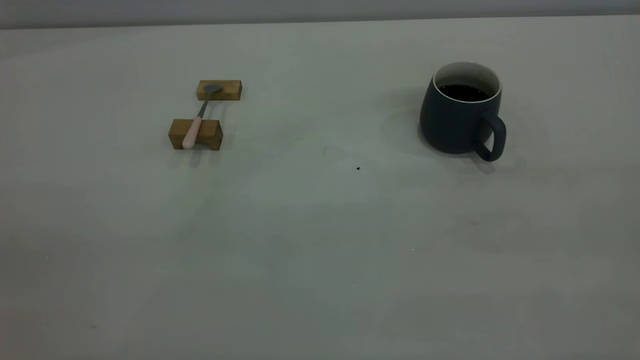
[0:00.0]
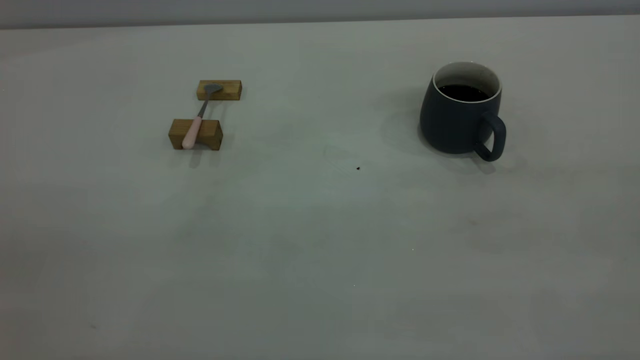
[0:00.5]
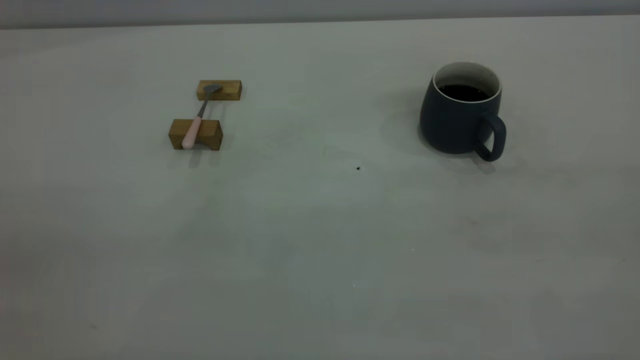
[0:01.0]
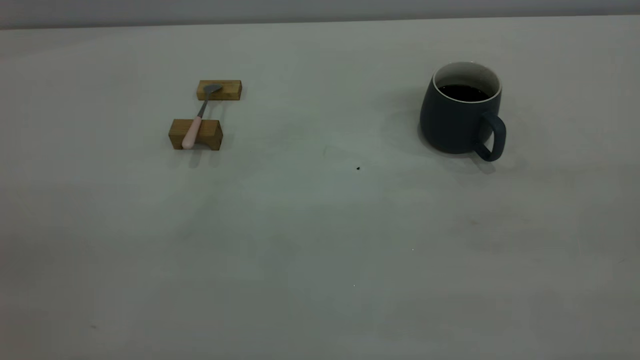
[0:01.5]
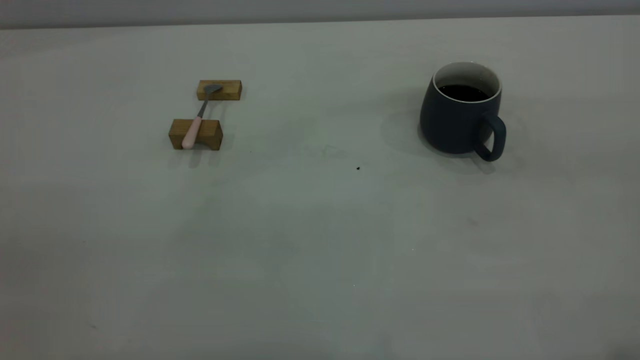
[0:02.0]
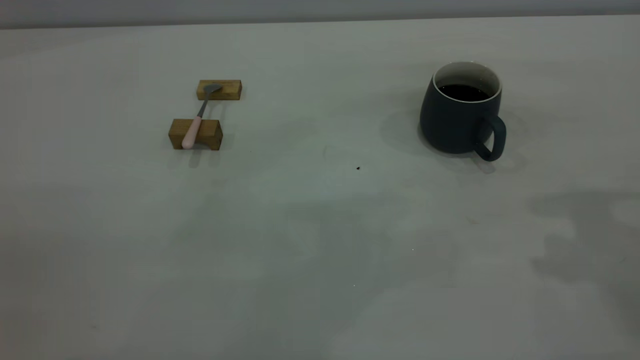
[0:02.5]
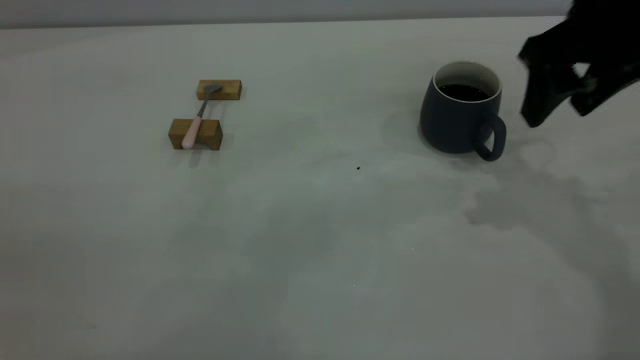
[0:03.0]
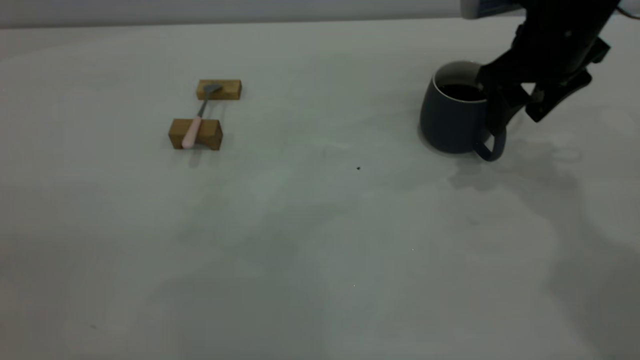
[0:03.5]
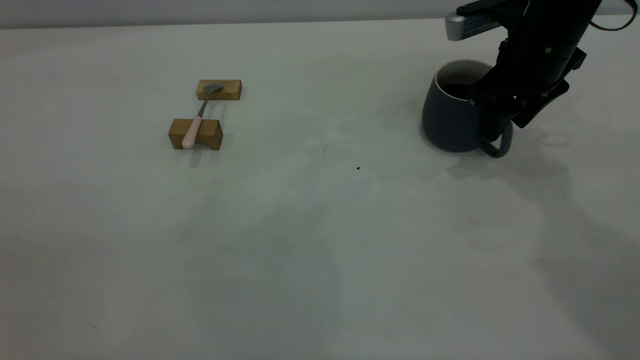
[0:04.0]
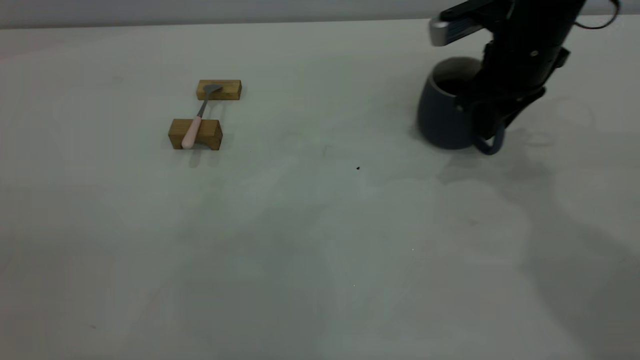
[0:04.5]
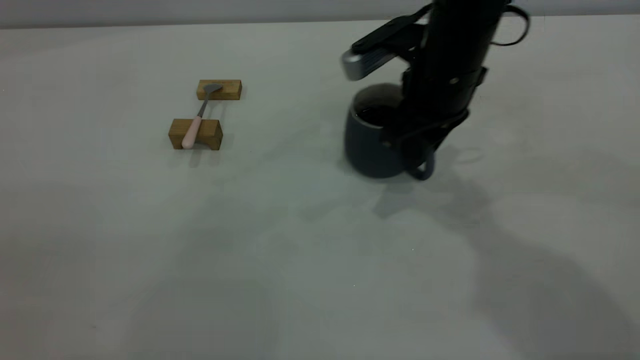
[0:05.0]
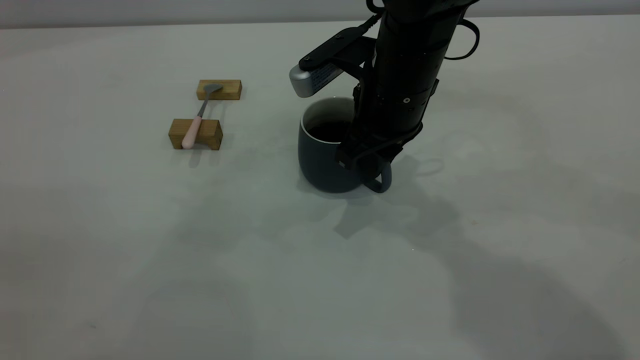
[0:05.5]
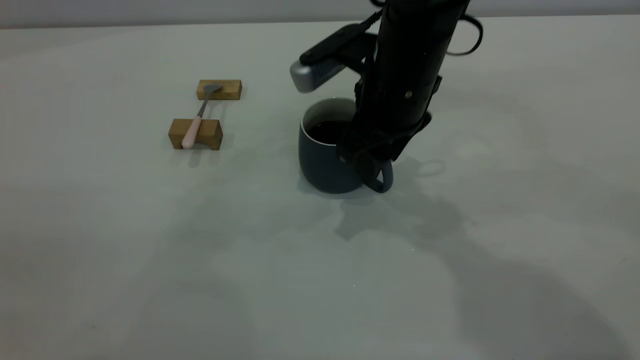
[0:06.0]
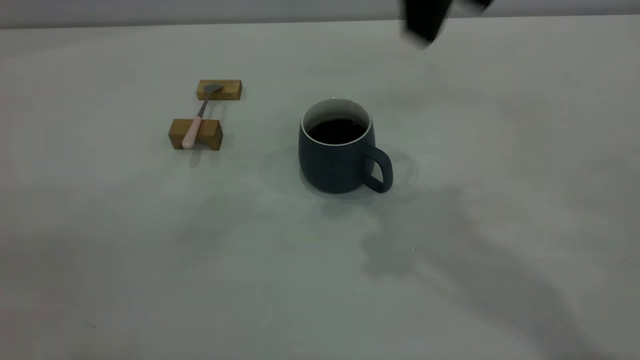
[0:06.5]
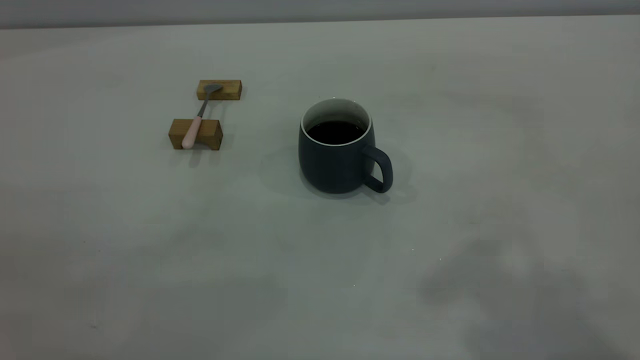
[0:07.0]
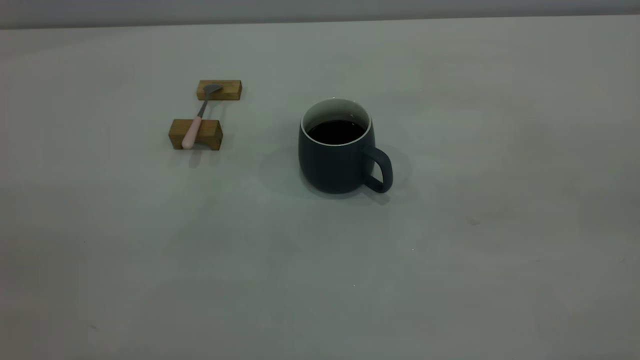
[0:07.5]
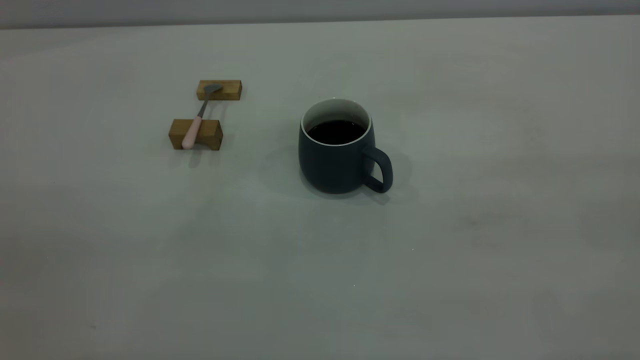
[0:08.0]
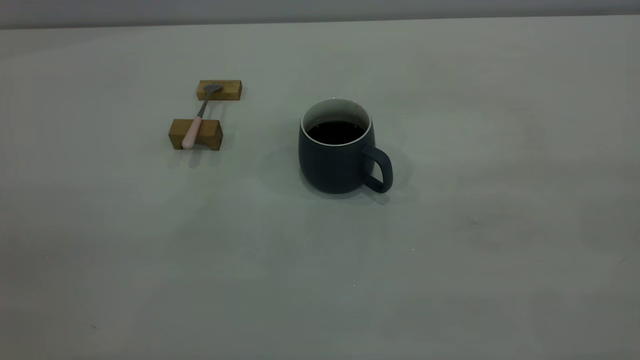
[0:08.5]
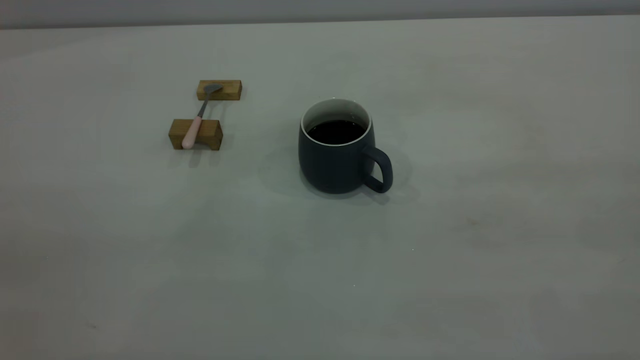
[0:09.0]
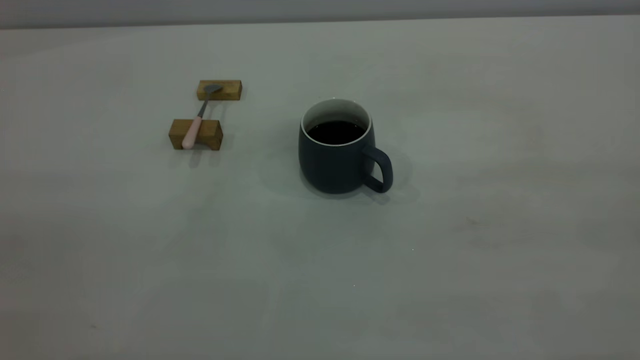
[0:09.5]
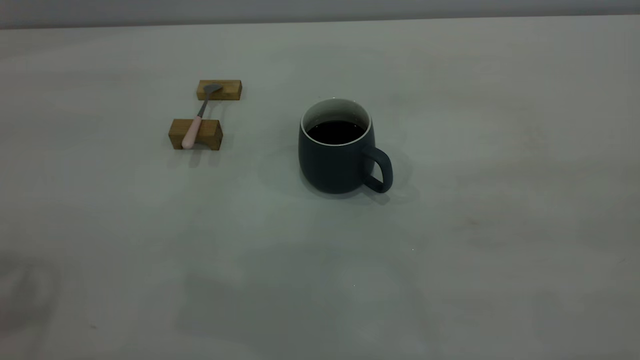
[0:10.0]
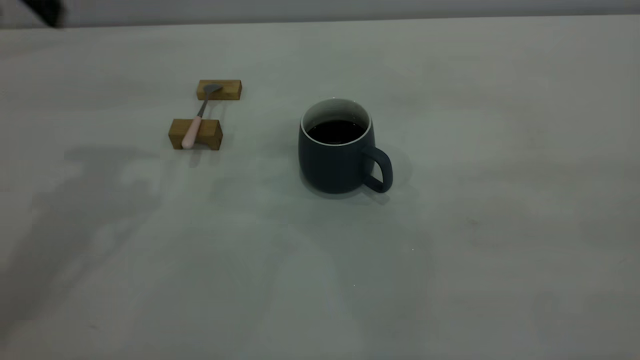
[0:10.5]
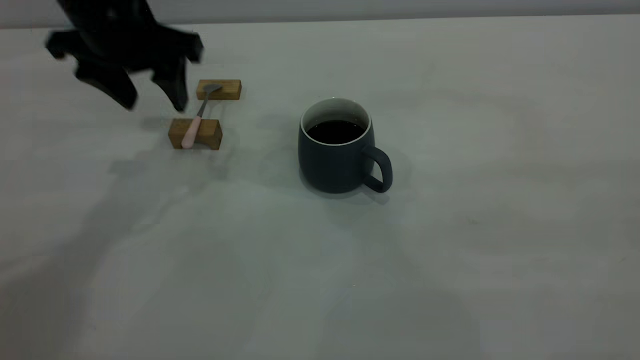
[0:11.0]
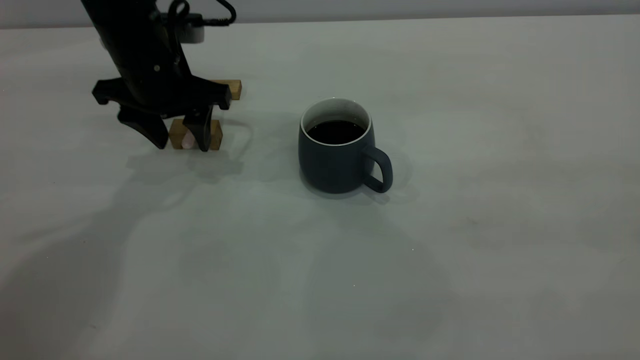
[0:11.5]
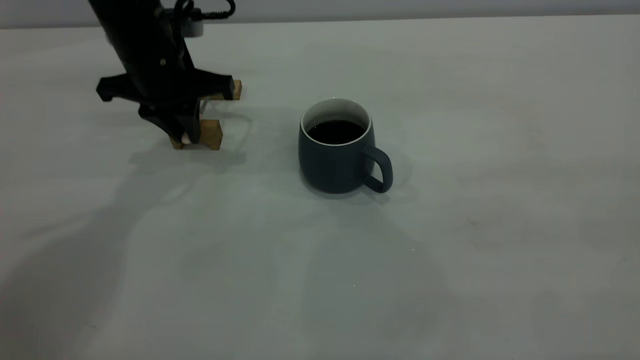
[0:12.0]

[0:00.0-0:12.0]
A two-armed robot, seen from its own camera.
Step, 0:00.0 to 0:06.0: Move the cup with coffee to the center of view.
0:02.0 to 0:04.0: The right gripper heads forward and downward, covering some 40 cm.
0:04.0 to 0:06.0: The right gripper heads to the left and backward, covering some 15 cm, and closes, then reopens.
0:06.0 to 0:08.0: The right gripper moves backward, to the right and upward, about 50 cm.
0:10.0 to 0:12.0: The left gripper moves downward, forward and to the right, approximately 35 cm, and closes up.

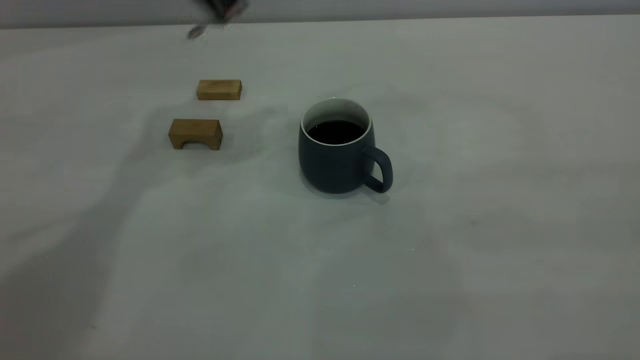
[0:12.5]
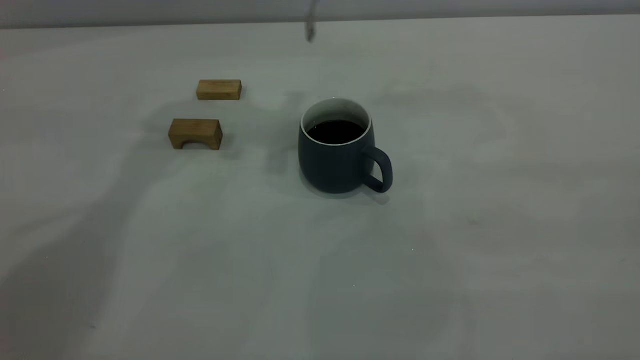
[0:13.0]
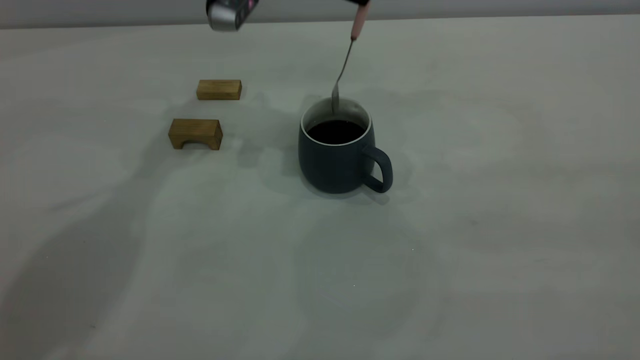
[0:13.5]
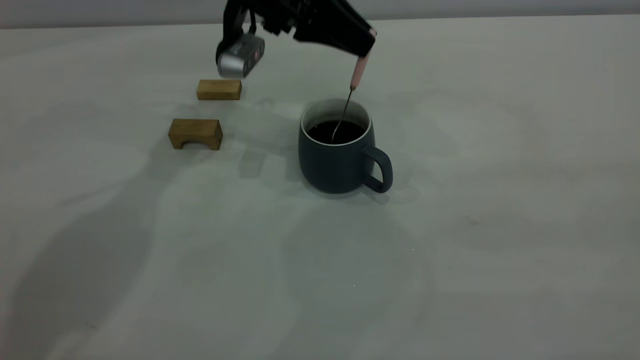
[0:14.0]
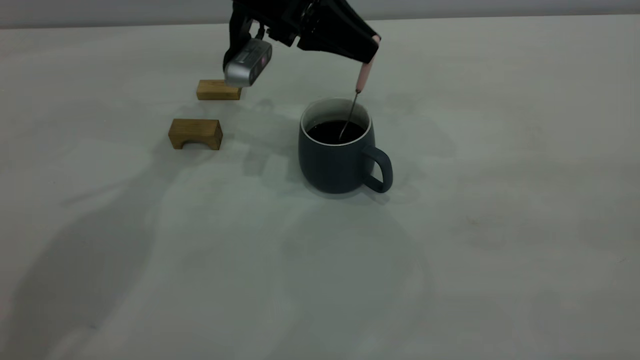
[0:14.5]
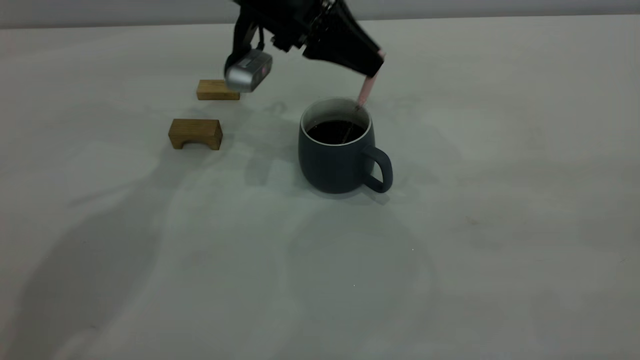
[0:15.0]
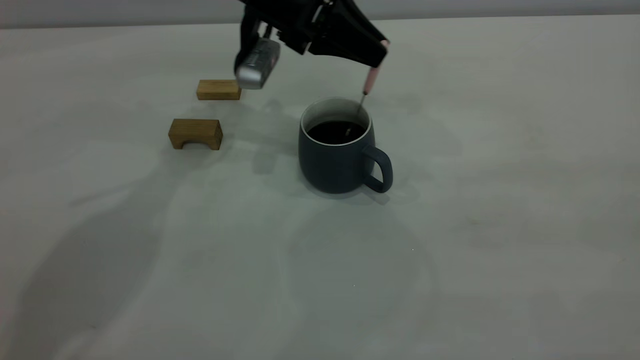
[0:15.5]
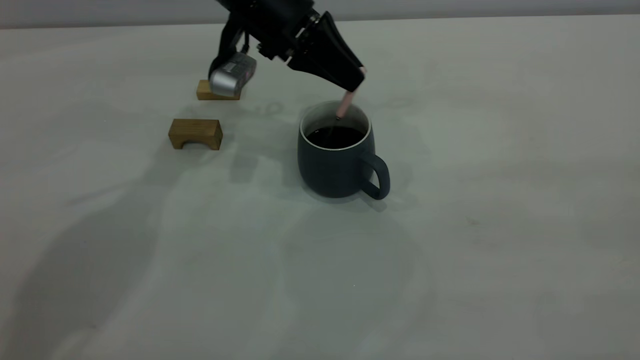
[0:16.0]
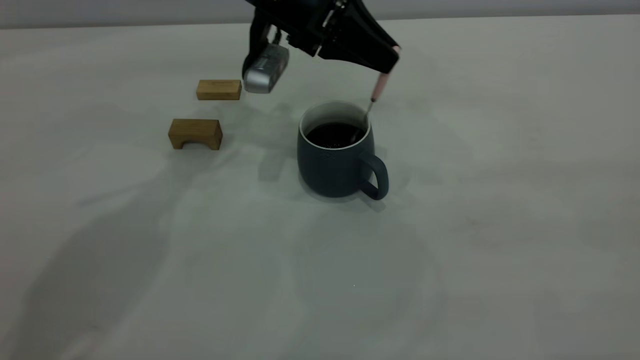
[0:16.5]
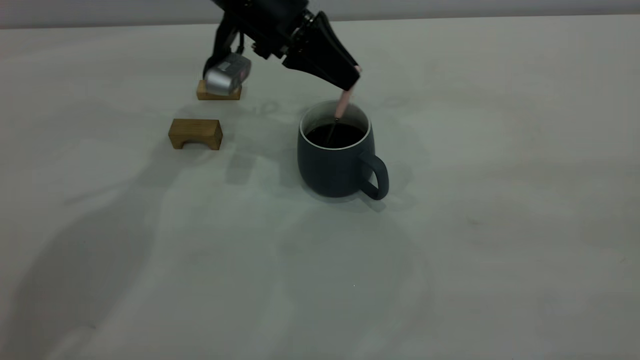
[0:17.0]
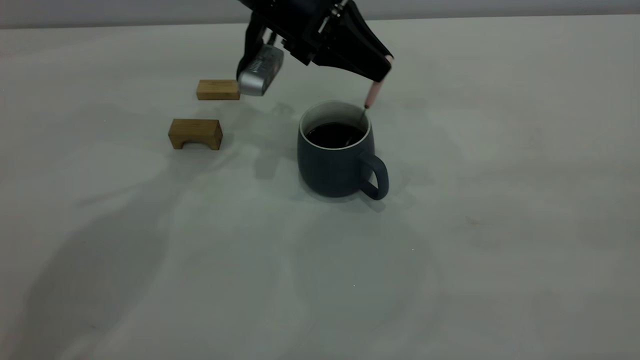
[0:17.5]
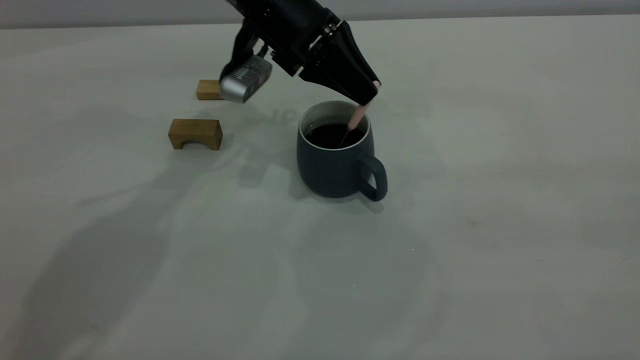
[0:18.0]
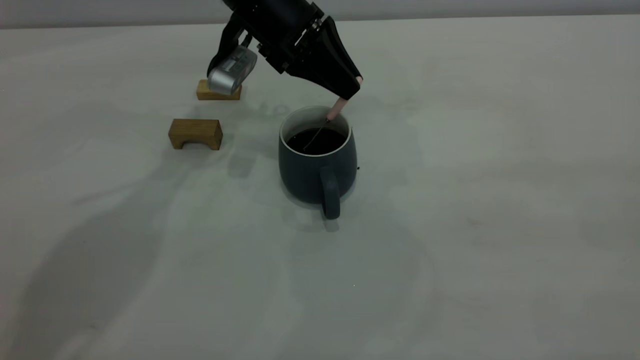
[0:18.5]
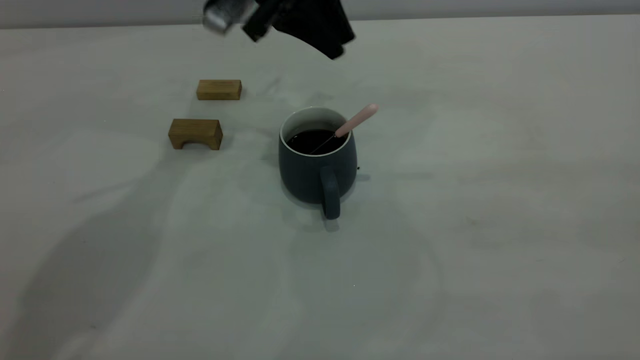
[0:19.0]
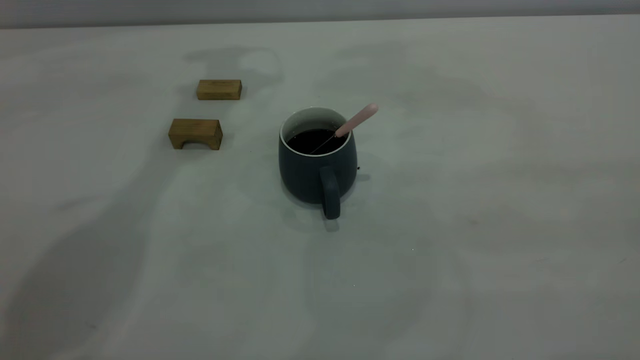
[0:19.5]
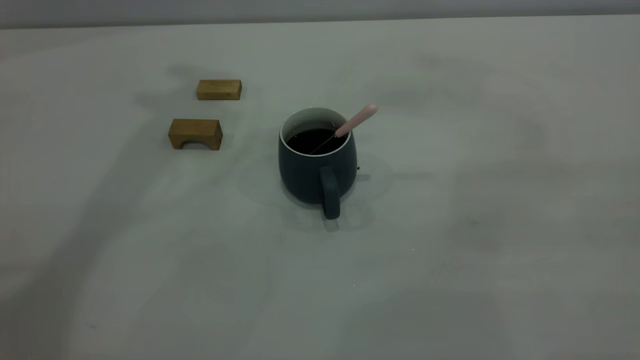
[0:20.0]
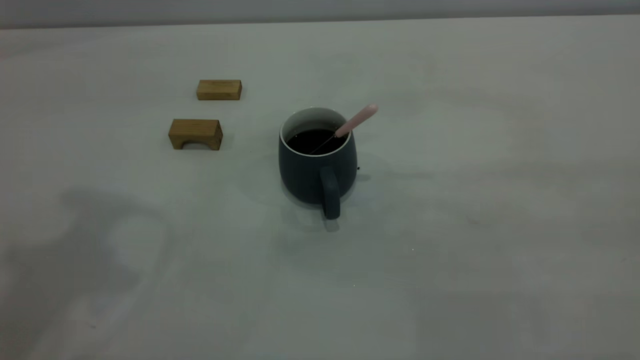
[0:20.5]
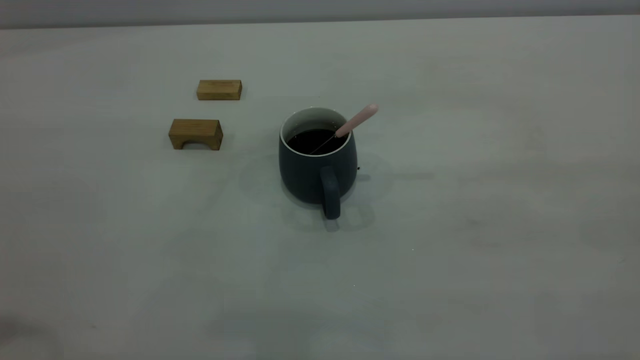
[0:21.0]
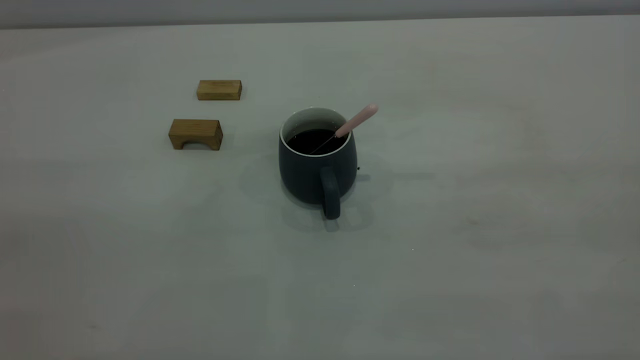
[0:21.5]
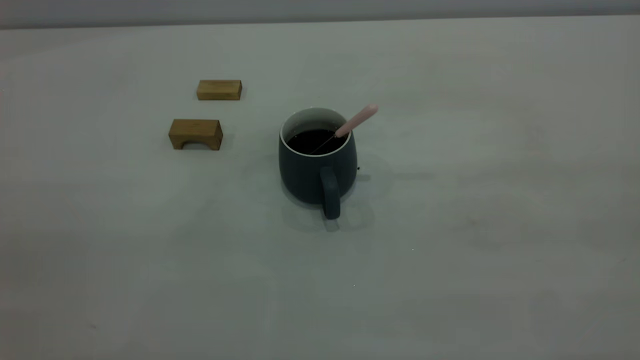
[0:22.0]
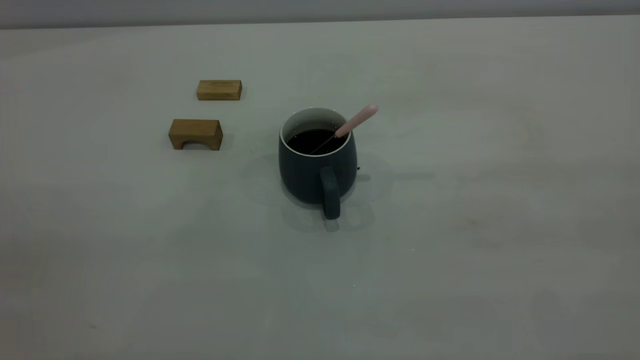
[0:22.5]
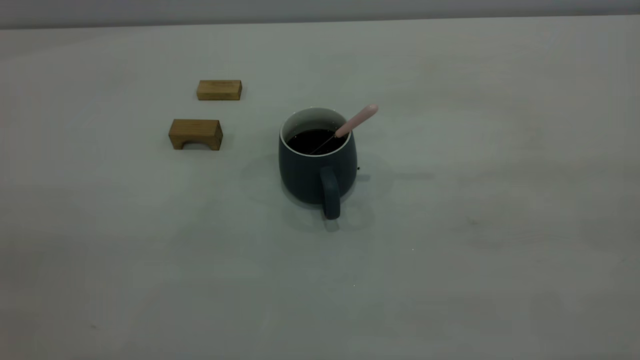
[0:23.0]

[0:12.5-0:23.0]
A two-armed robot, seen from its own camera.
Step, 0:12.5 to 0:18.5: Stir the coffee in the cup.
0:12.5 to 0:14.5: The left gripper travels downward by some 15 cm.
0:14.5 to 0:16.5: The grippers stay close to where they were, moving slightly.
0:16.5 to 0:19.0: The left gripper moves approximately 5 cm.
0:19.0 to 0:21.0: The left gripper travels backward and to the left by approximately 40 cm.
